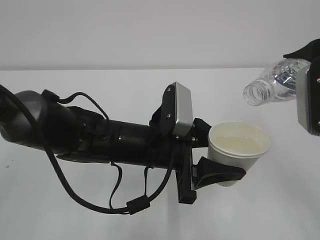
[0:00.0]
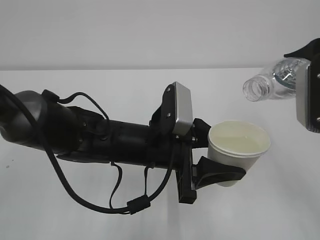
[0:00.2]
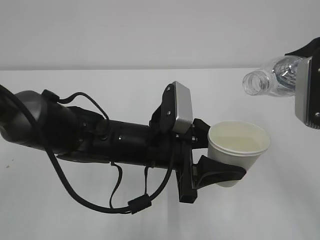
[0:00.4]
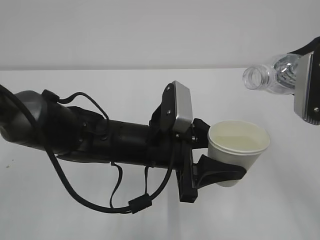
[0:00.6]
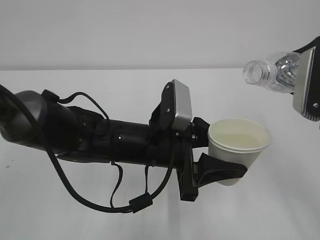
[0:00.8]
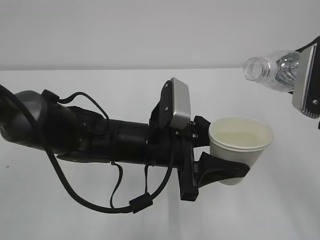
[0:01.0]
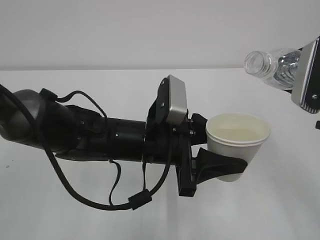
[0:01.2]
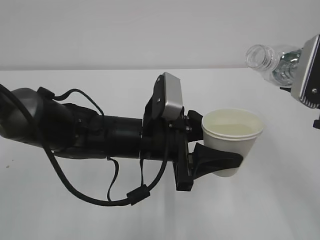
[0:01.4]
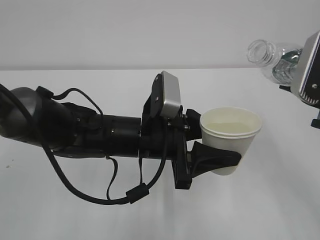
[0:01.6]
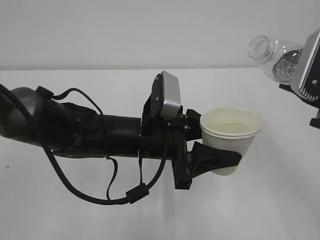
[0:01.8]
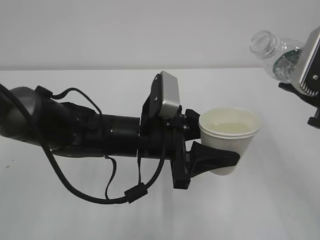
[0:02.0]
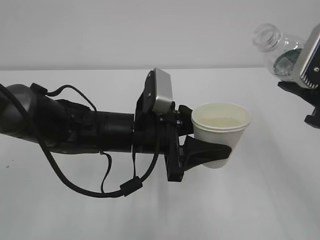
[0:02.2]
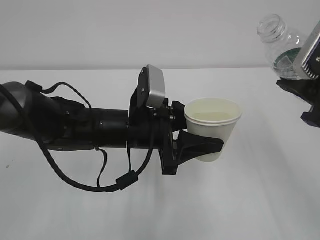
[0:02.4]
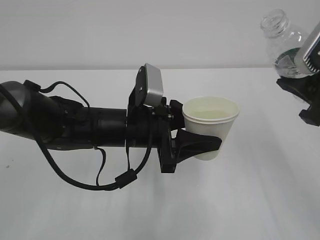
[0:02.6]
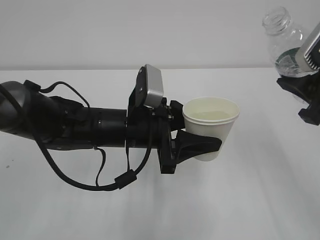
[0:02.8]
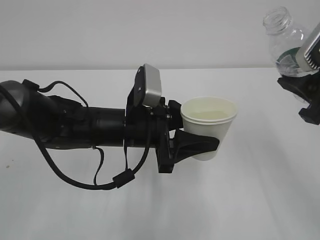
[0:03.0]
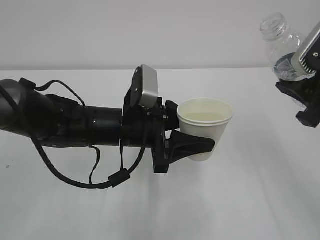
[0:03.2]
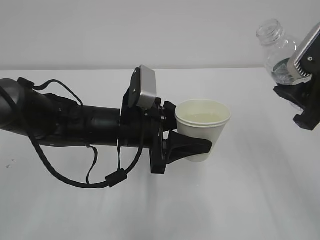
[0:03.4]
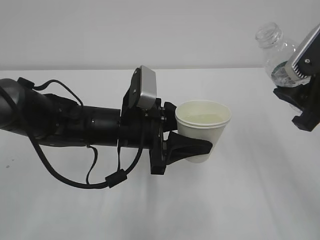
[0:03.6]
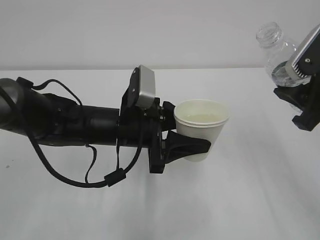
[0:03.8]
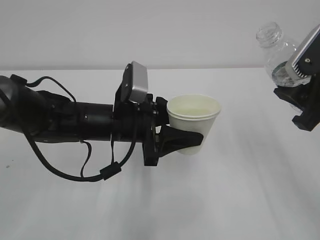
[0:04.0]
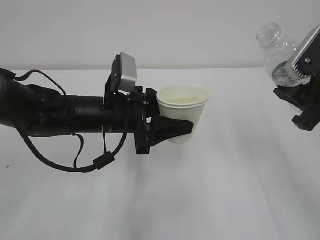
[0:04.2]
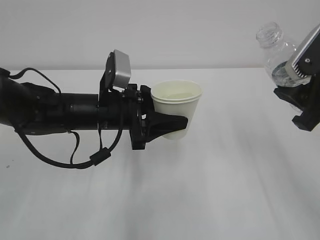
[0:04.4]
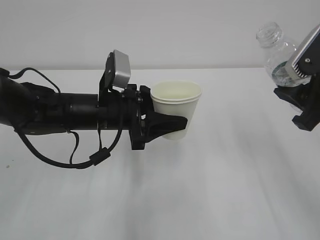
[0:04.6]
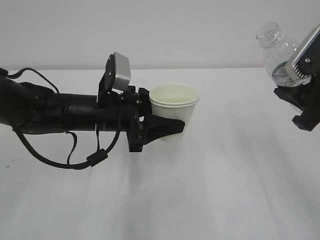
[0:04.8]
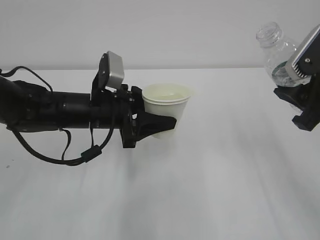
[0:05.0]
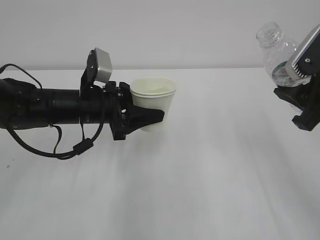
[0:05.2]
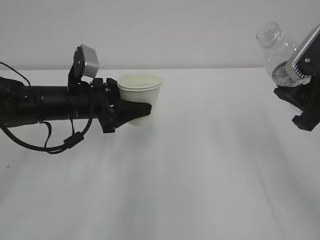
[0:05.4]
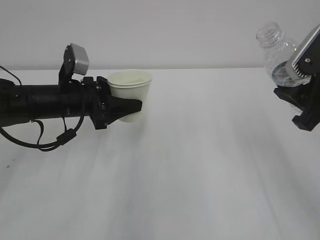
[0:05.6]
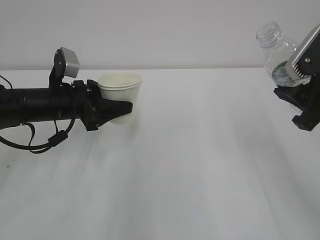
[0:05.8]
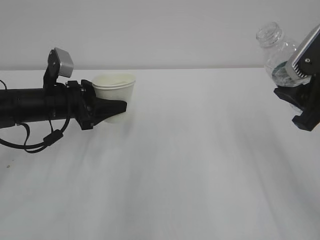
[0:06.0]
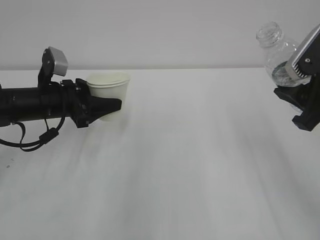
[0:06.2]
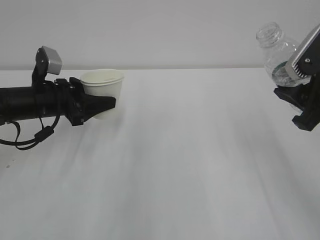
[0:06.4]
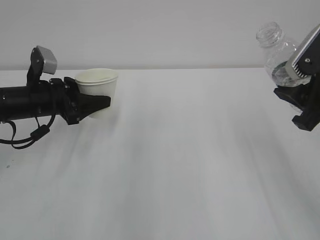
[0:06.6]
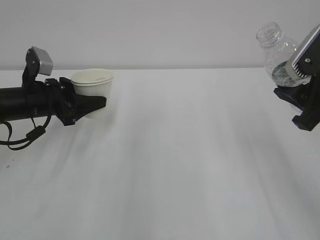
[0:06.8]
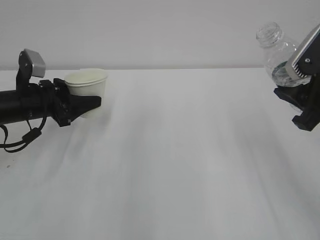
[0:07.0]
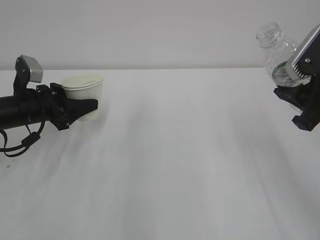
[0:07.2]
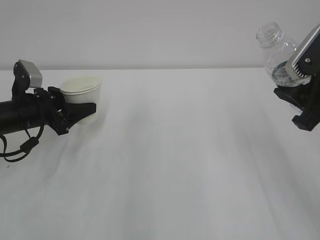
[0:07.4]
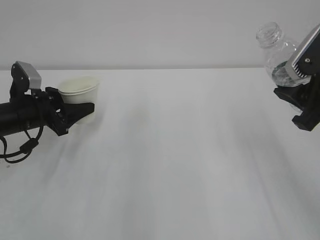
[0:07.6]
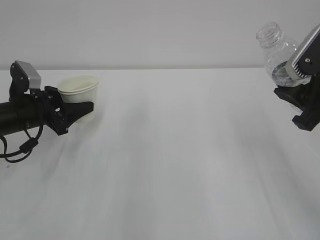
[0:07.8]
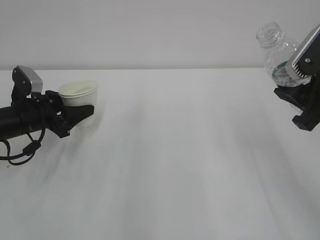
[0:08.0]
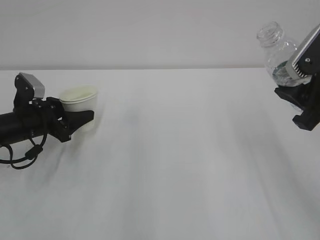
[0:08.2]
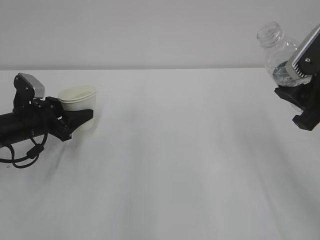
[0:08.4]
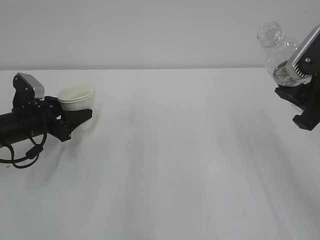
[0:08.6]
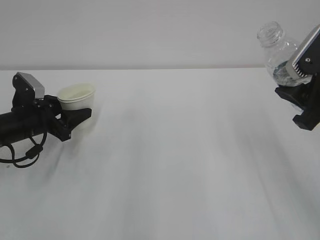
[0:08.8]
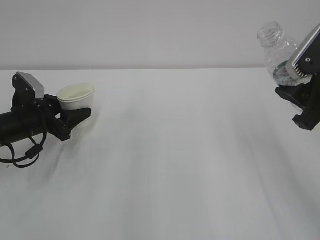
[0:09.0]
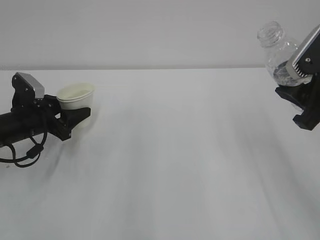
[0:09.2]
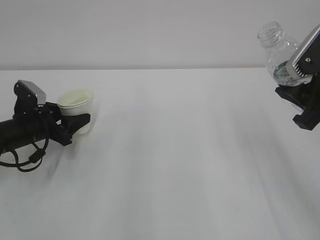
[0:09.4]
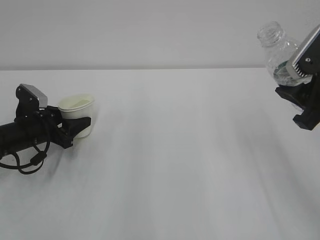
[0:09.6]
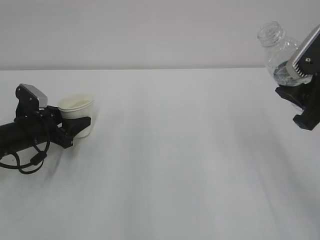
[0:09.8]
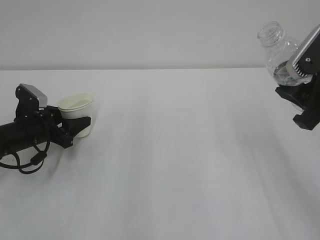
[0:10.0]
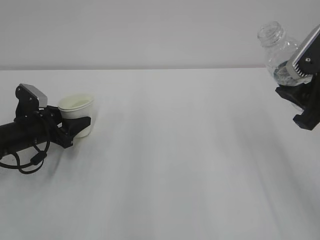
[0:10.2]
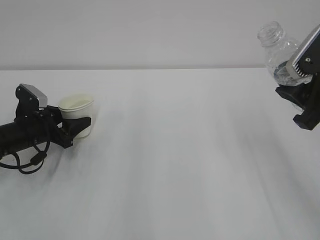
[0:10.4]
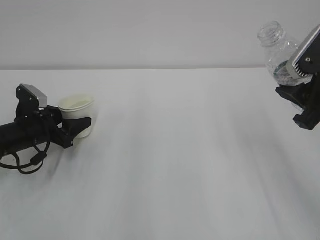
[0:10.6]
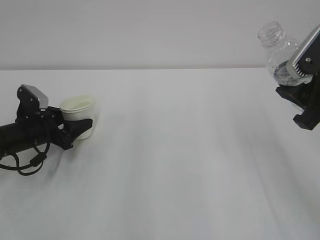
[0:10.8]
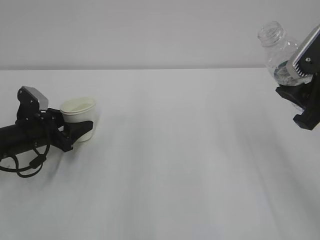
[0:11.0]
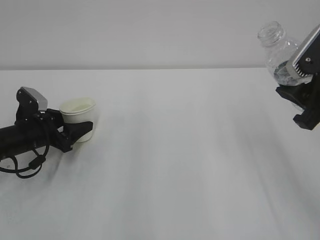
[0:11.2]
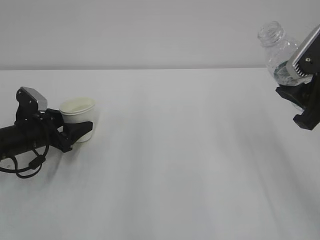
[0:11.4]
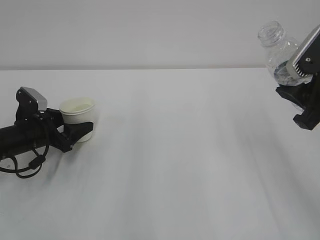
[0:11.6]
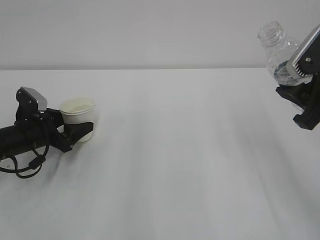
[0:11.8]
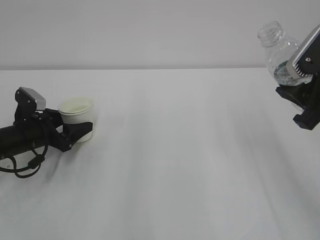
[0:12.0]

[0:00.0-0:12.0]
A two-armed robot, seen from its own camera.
0:03.0 to 0:04.4: The left gripper moves roughly 5 cm.
0:04.4 to 0:06.0: The left gripper goes some 10 cm to the left.
0:06.0 to 0:07.6: The left gripper shifts approximately 5 cm to the left.
0:07.6 to 0:10.4: There are only small adjustments of the grippers.
0:10.4 to 0:12.0: Both grippers stay put.

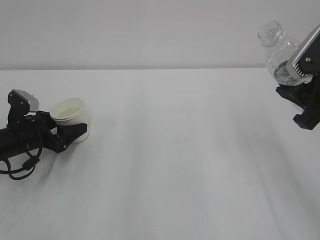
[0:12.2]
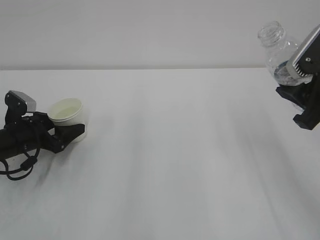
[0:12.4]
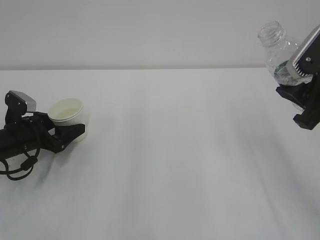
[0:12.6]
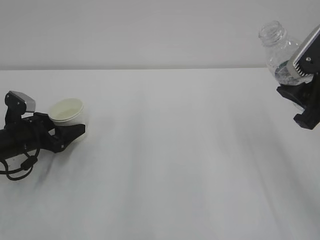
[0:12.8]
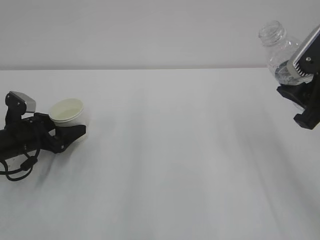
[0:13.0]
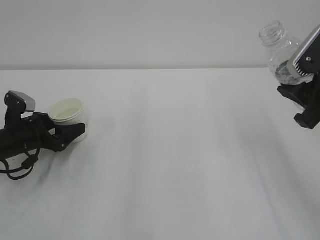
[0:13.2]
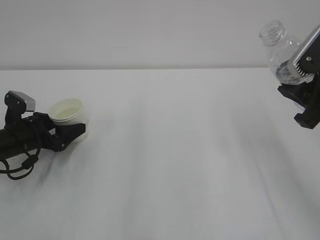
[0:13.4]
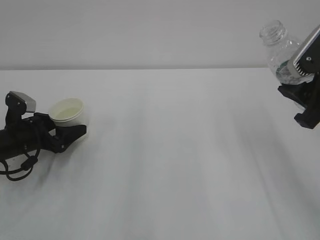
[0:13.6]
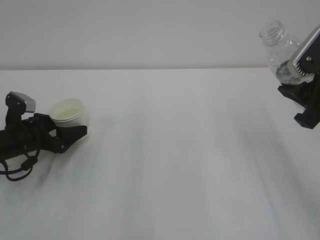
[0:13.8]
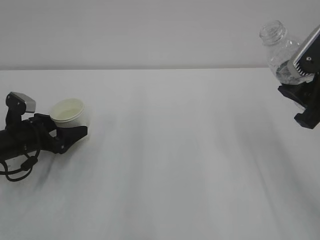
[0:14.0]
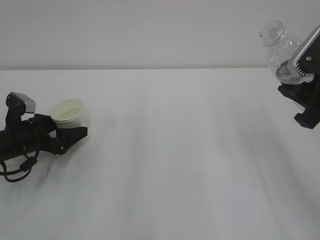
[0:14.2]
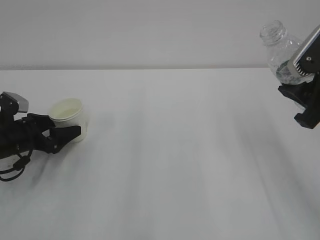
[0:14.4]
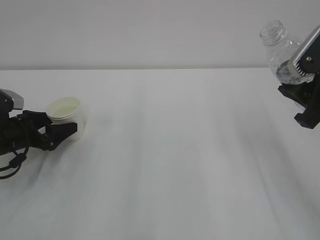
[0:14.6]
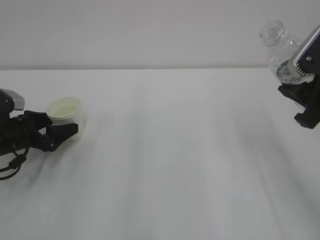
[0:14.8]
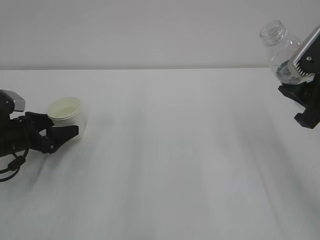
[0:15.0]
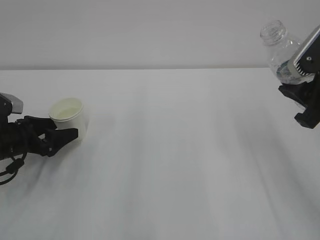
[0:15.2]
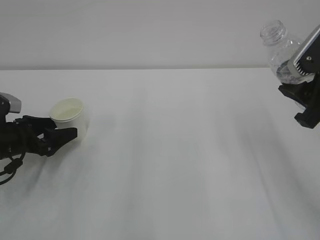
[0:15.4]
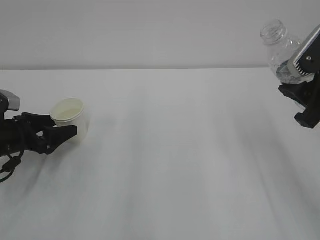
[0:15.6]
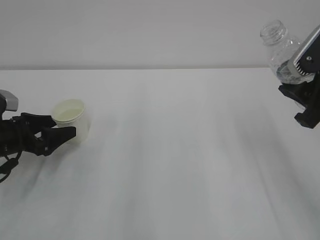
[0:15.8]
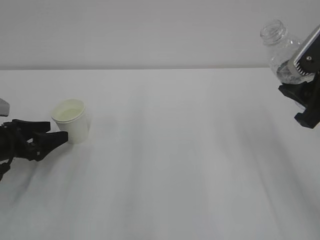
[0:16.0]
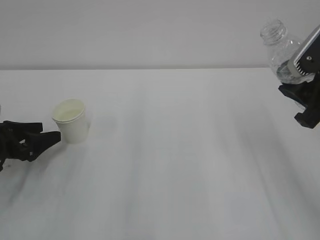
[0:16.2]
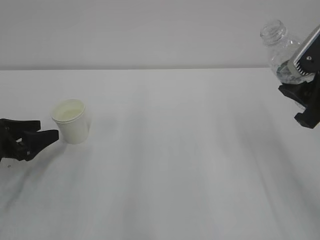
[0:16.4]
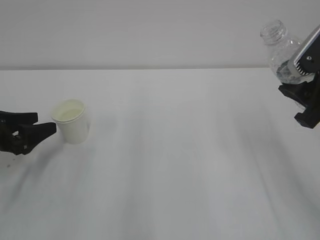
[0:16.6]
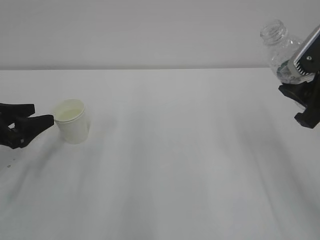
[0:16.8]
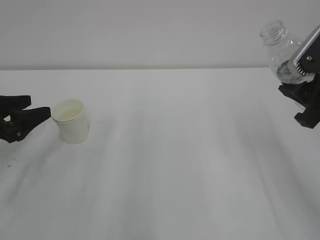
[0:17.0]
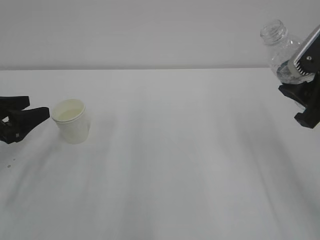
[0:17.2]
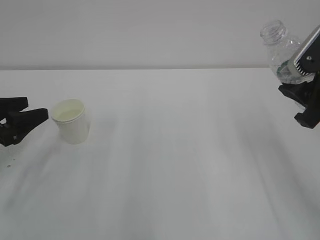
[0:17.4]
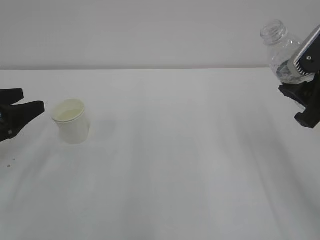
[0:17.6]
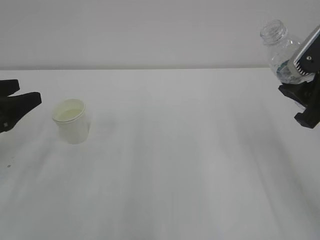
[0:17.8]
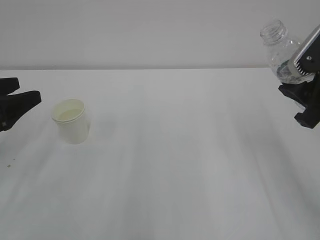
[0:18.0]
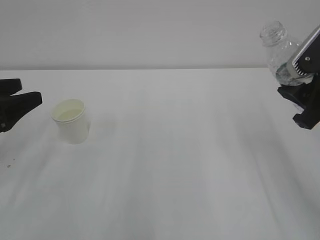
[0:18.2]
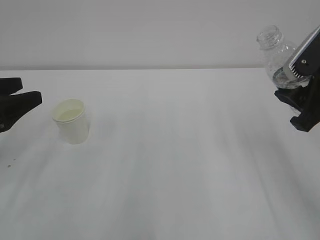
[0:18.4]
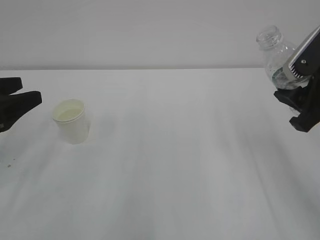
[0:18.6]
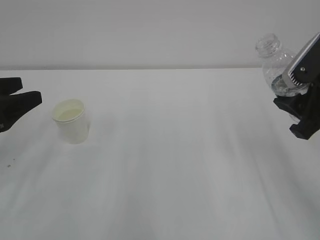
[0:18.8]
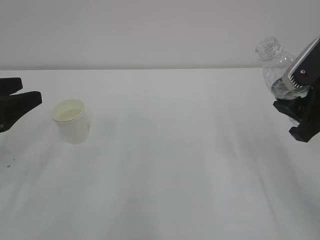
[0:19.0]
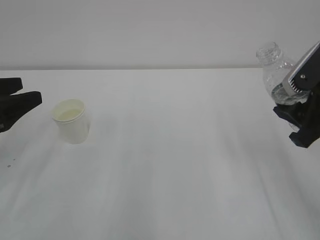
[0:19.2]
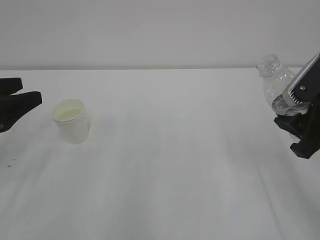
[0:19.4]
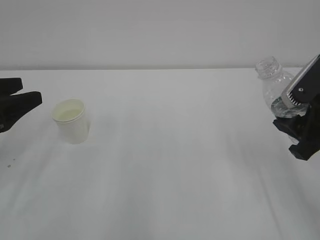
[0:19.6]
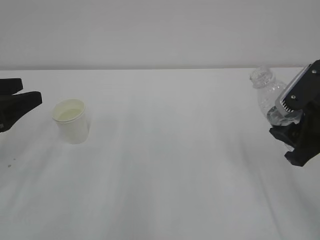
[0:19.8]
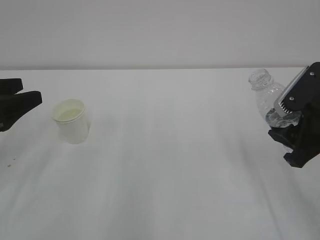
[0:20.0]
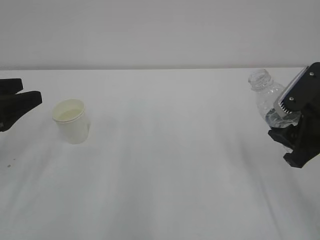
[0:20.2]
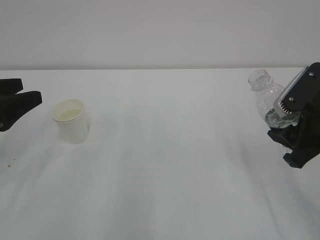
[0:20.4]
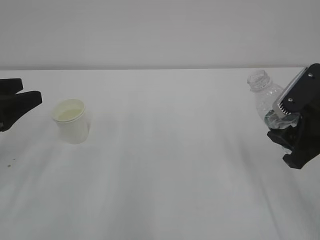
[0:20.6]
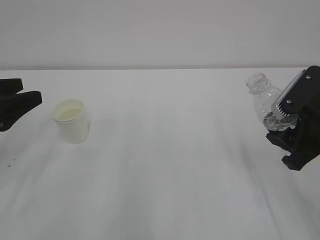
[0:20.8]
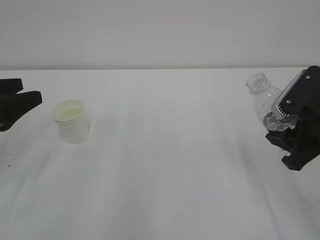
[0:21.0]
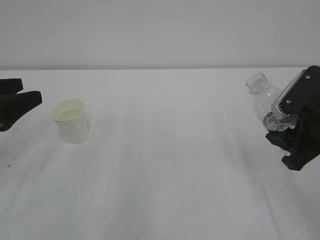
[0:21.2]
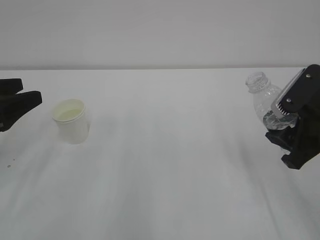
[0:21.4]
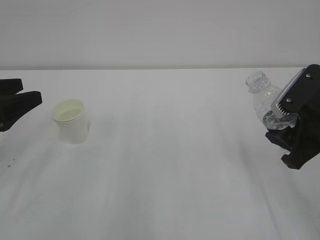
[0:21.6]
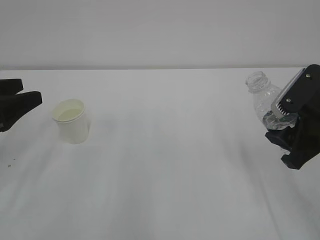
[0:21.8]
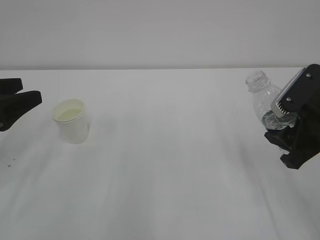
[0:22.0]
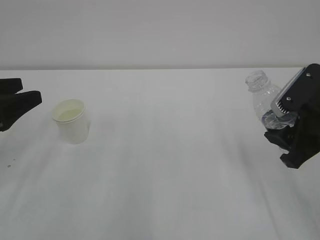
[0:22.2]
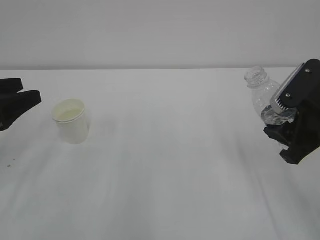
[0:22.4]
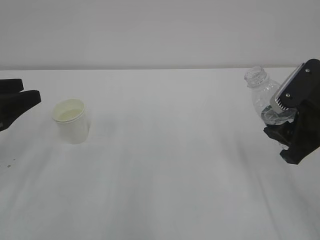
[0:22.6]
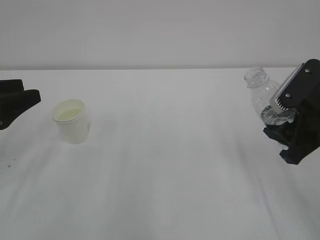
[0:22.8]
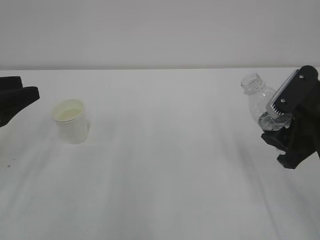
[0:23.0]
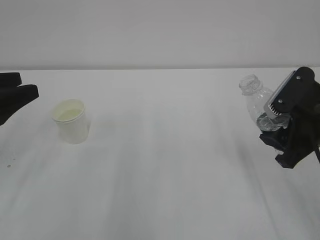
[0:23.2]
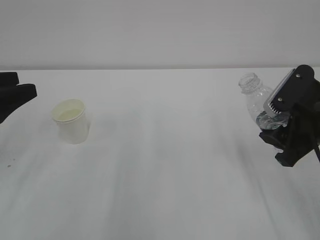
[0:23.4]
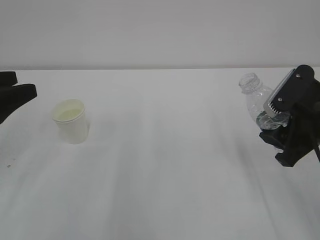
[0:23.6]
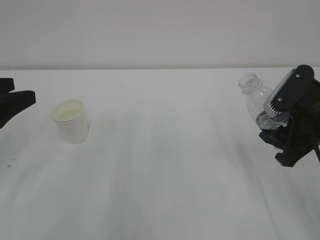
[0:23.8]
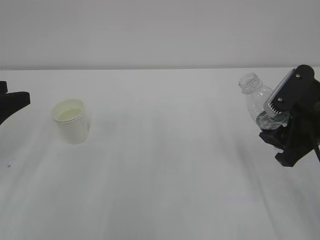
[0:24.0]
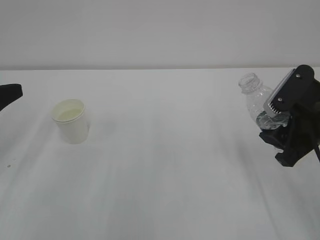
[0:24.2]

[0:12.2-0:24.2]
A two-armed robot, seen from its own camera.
Step, 0:12.2 to 0:15.0: Put the cup down with left gripper.
0:12.2 to 0:13.8: Both grippers stay about where they are.
0:13.8 to 0:15.2: The grippers stay close to where they were, moving slightly.
0:15.2 to 0:16.6: The left gripper ends up about 5 cm from where it was.
0:16.6 to 0:18.2: The left gripper moves upward, approximately 10 cm.
0:18.2 to 0:19.8: The right gripper shifts by approximately 5 cm.
0:19.8 to 0:22.6: Both grippers stay put.
0:22.6 to 0:24.2: The grippers make only small movements.
